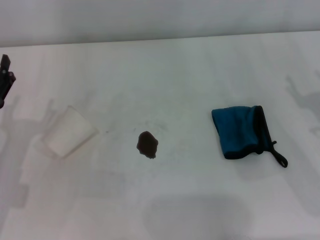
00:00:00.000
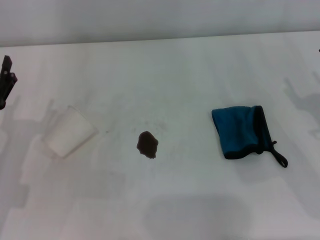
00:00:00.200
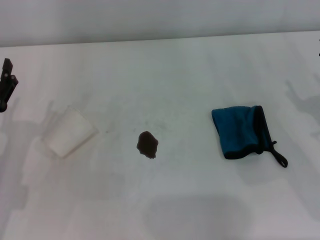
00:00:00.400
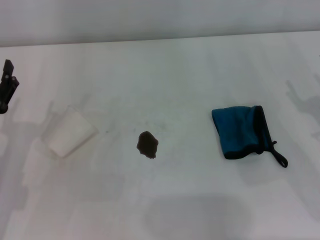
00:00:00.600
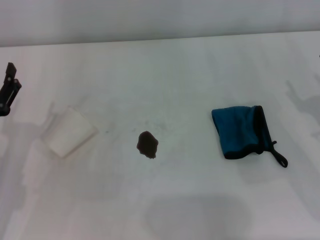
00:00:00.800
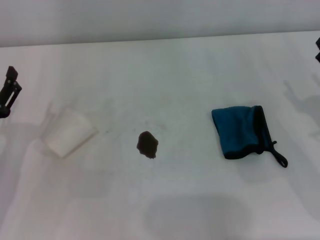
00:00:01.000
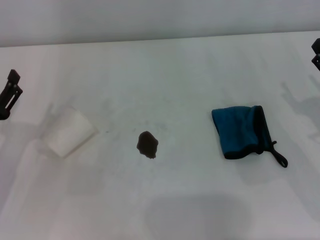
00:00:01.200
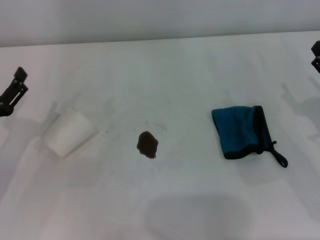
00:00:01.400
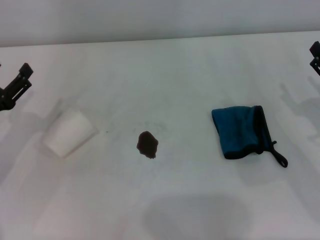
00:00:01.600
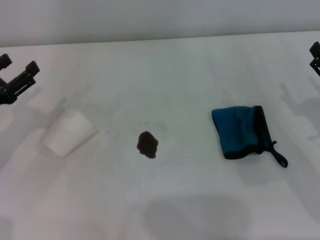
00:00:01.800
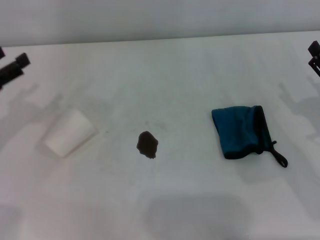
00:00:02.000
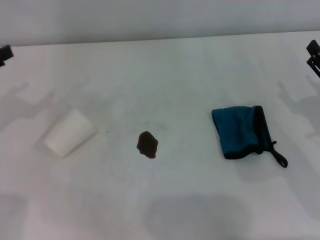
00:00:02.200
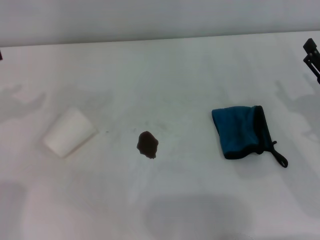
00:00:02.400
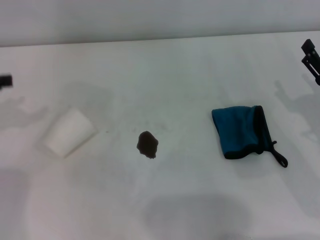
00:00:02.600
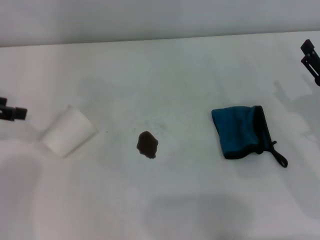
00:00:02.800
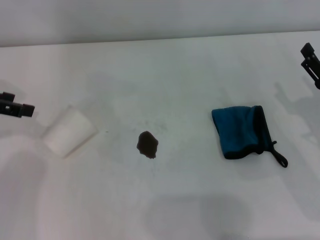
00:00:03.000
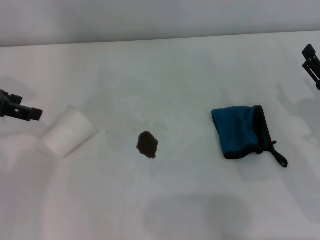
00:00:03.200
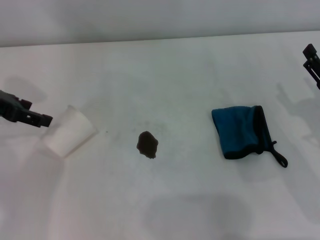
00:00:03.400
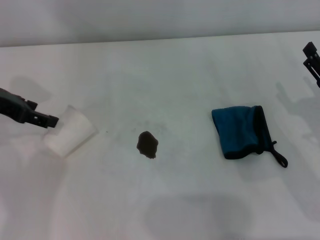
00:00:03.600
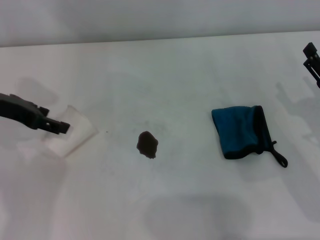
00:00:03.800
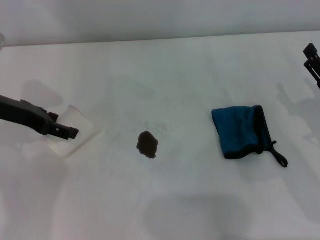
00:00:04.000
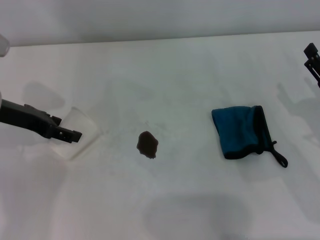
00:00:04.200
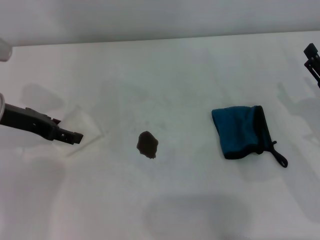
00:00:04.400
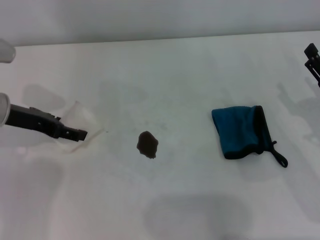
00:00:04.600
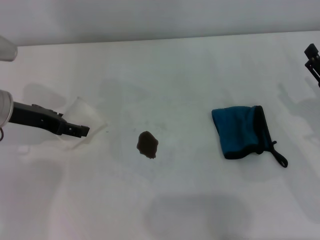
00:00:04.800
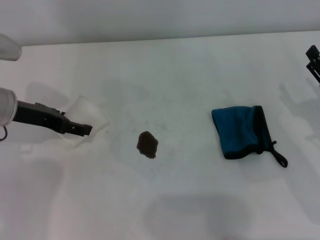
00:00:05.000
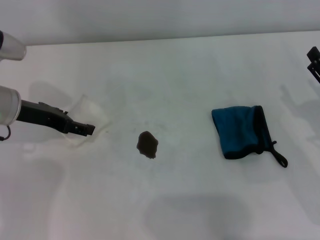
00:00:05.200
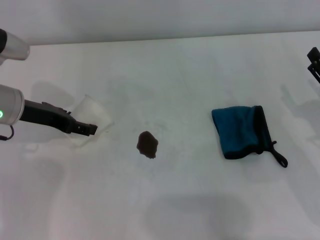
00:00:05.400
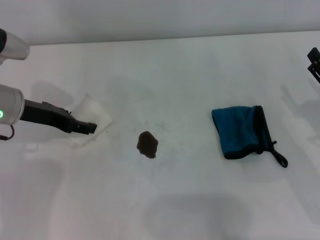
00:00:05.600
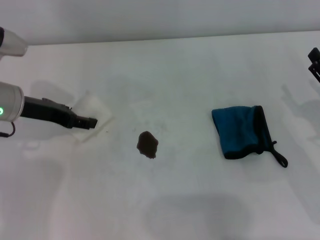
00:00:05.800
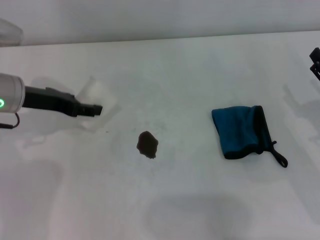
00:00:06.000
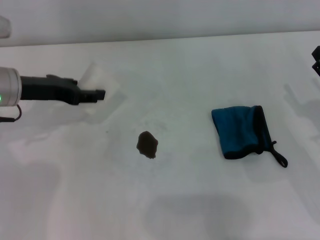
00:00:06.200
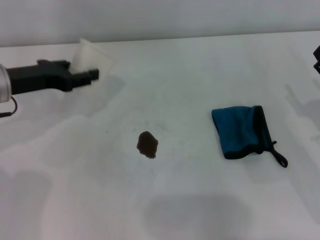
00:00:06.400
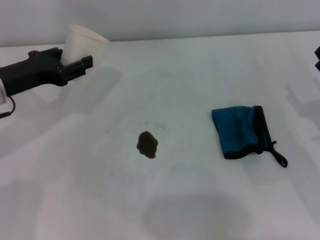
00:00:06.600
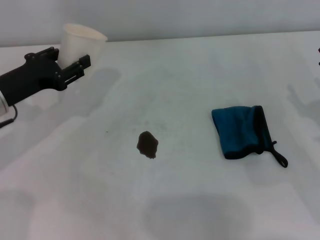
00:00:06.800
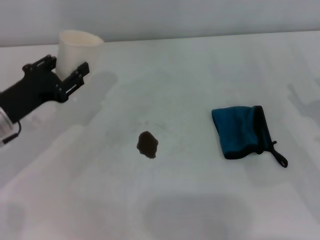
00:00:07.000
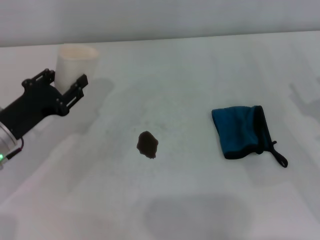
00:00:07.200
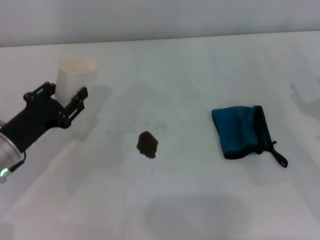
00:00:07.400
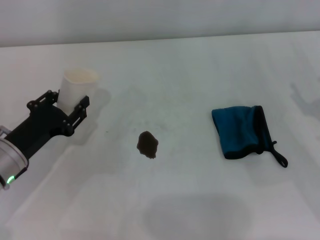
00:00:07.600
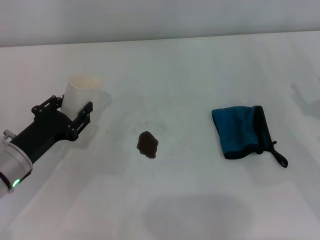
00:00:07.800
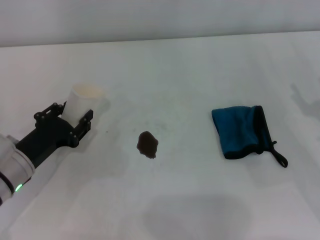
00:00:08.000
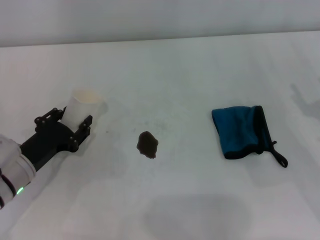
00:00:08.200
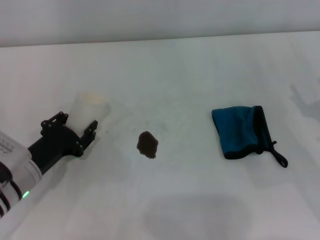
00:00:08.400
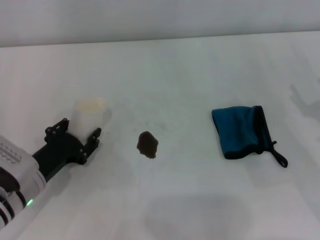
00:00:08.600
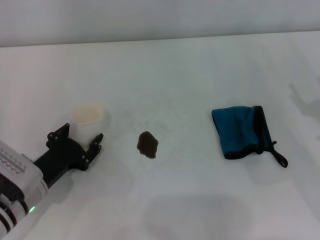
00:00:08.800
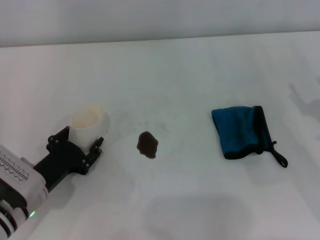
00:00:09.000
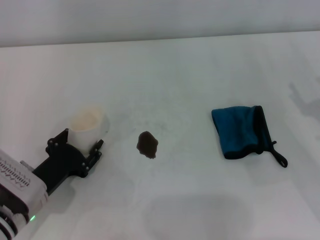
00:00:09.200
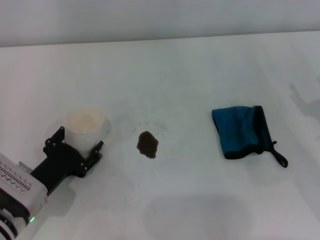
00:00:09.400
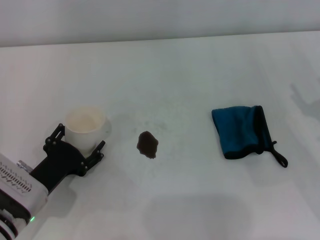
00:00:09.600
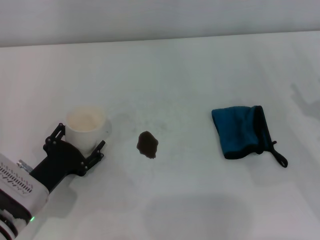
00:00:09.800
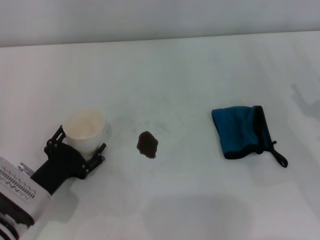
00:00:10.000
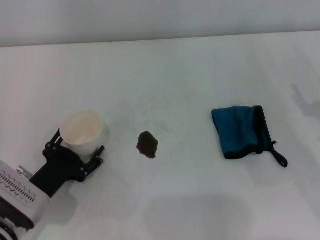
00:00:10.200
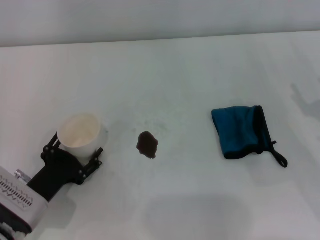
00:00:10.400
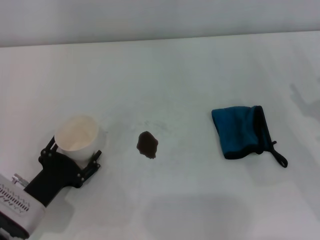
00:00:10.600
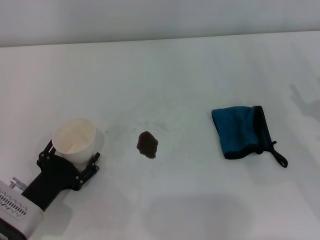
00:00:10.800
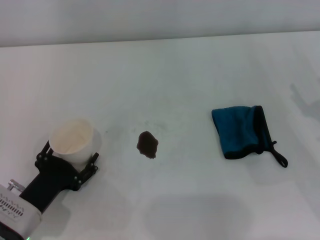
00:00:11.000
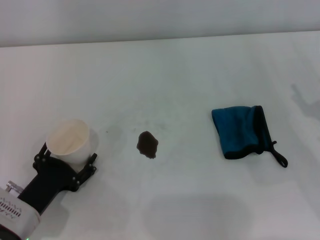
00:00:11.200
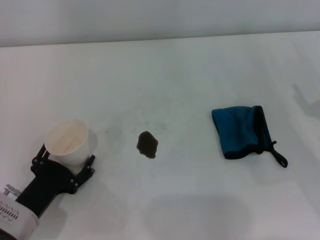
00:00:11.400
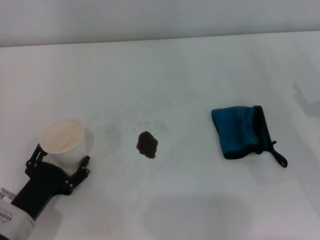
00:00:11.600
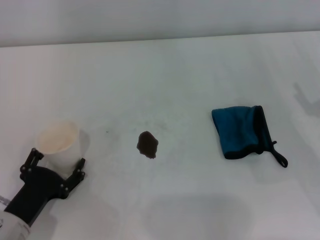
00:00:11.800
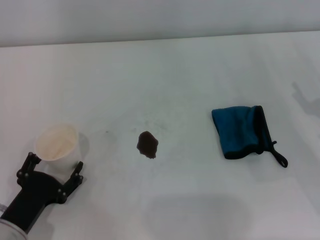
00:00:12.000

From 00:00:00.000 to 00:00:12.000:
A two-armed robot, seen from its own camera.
Step, from 00:00:00.000 to 00:00:05.600: Grasp the paper cup with the left gripper.
Step, from 00:00:05.800 to 00:00:12.000: Stand the paper cup upright with the left gripper.
From 00:00:01.600 to 00:00:03.000: The left gripper moves upward and forward, some 15 cm.
From 00:00:03.000 to 00:00:04.400: The left gripper shifts approximately 10 cm to the right and downward.
From 00:00:04.400 to 00:00:06.000: The left gripper closes up.
From 00:00:06.000 to 00:00:07.600: The left gripper shifts roughly 15 cm backward and downward.
From 00:00:07.600 to 00:00:09.000: The left gripper ends up some 5 cm from where it was.
From 00:00:09.000 to 00:00:10.400: The left gripper opens.
From 00:00:10.400 to 00:00:12.000: The grippers make only small movements.

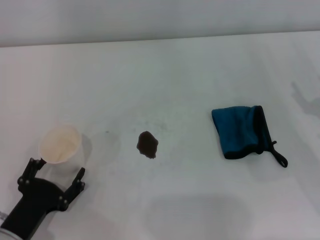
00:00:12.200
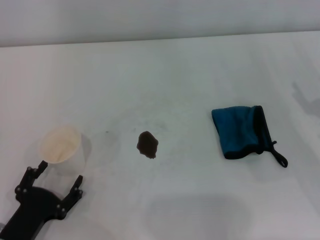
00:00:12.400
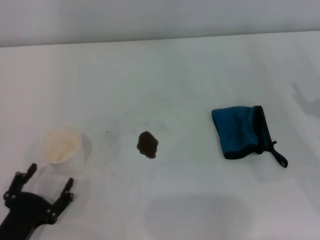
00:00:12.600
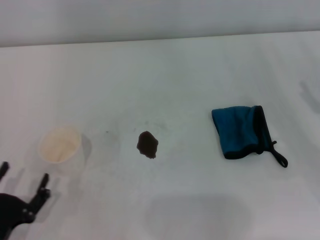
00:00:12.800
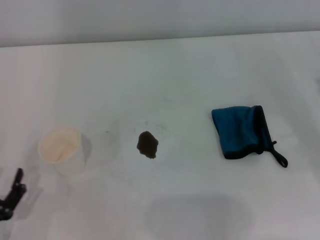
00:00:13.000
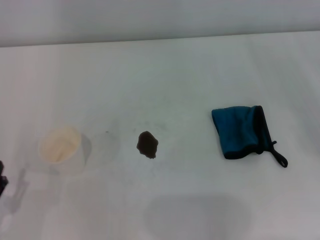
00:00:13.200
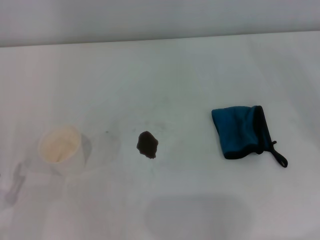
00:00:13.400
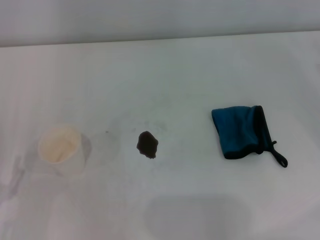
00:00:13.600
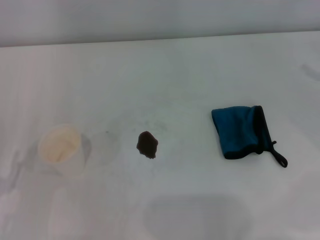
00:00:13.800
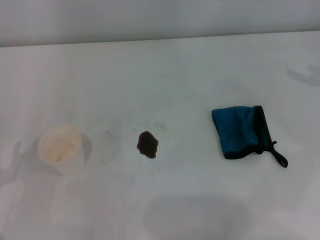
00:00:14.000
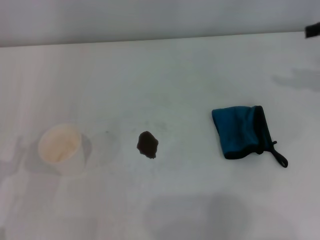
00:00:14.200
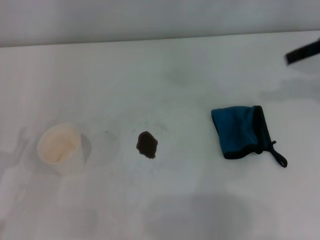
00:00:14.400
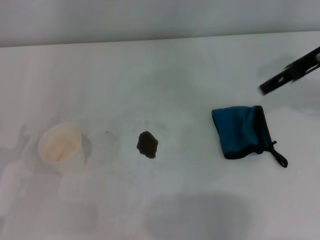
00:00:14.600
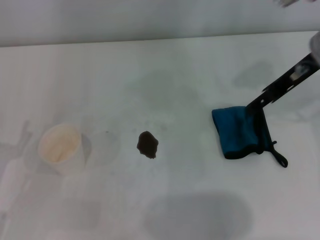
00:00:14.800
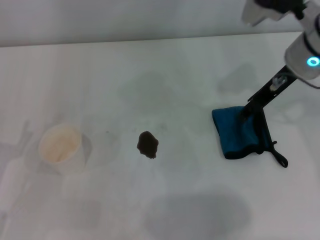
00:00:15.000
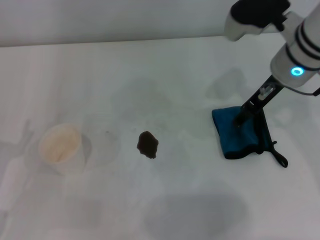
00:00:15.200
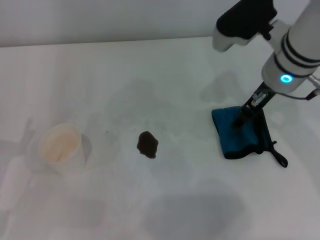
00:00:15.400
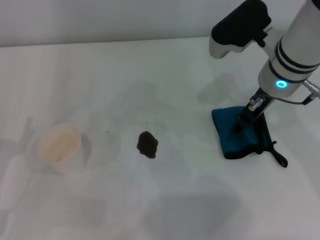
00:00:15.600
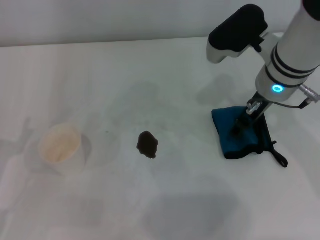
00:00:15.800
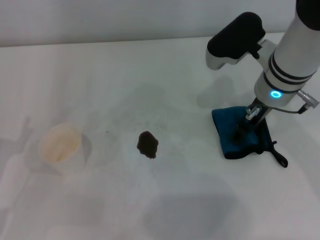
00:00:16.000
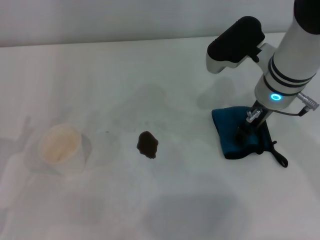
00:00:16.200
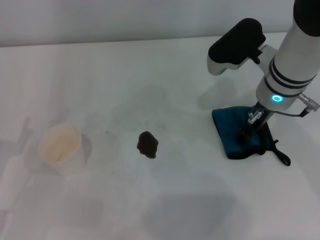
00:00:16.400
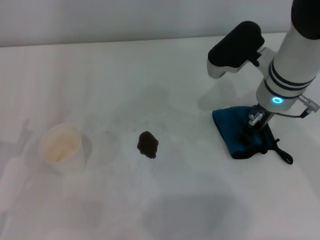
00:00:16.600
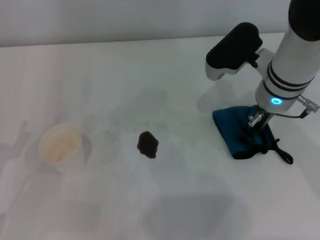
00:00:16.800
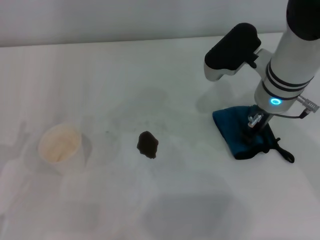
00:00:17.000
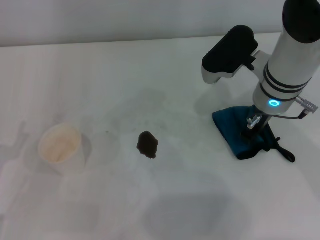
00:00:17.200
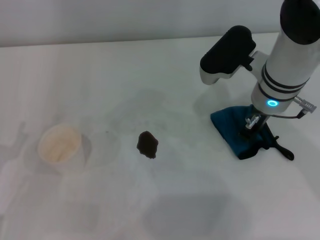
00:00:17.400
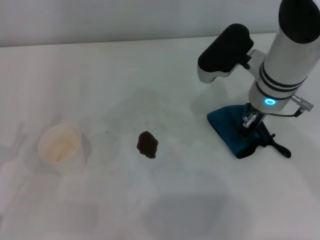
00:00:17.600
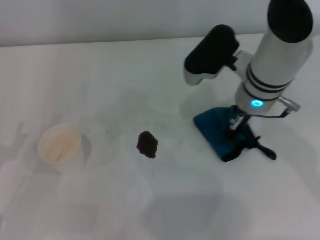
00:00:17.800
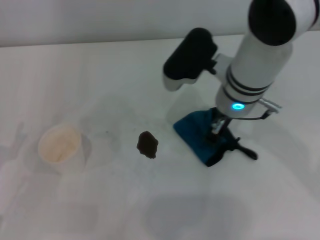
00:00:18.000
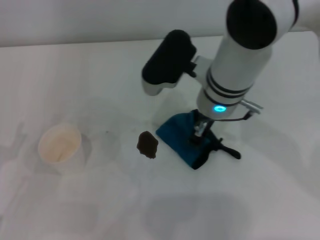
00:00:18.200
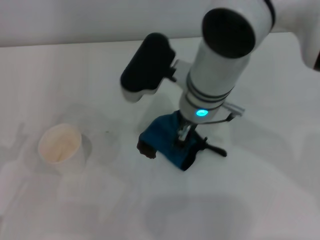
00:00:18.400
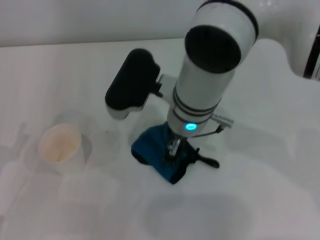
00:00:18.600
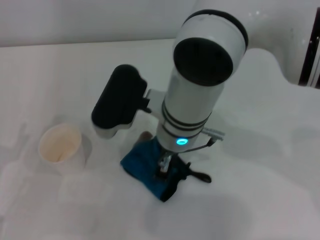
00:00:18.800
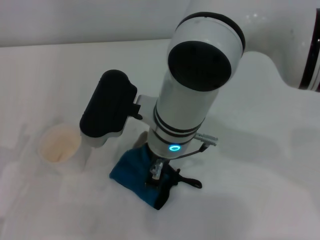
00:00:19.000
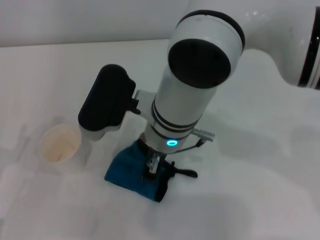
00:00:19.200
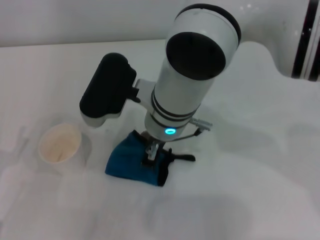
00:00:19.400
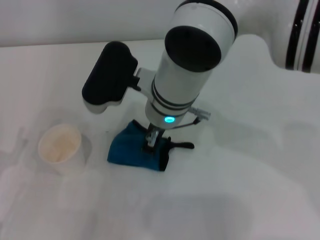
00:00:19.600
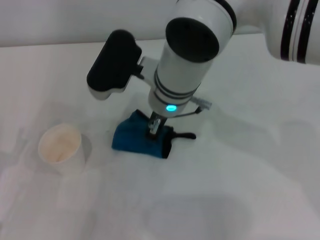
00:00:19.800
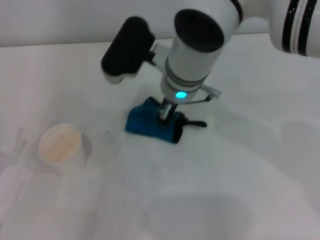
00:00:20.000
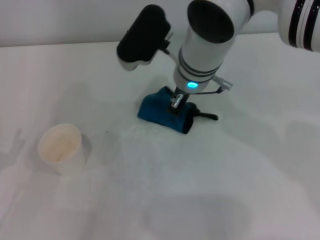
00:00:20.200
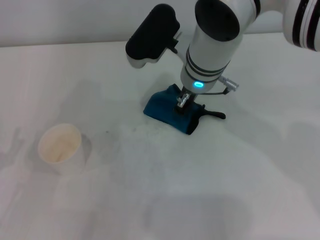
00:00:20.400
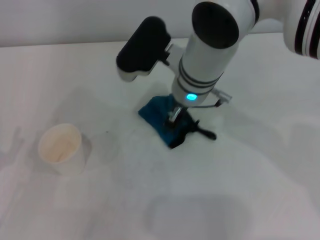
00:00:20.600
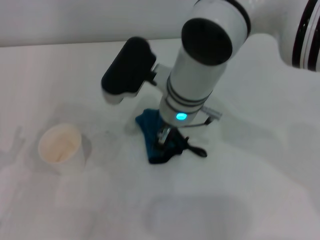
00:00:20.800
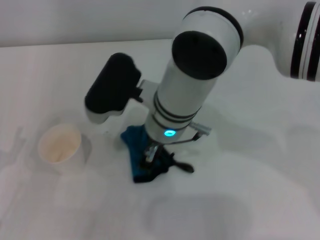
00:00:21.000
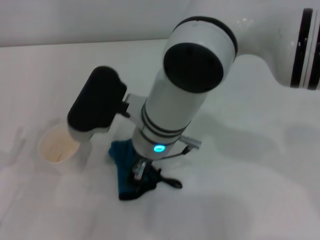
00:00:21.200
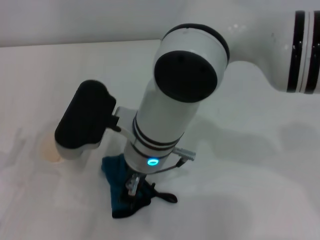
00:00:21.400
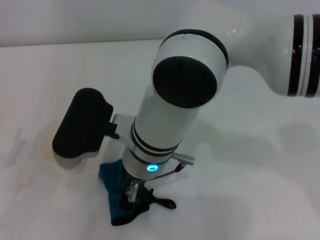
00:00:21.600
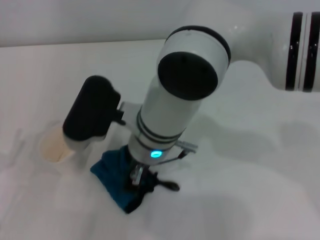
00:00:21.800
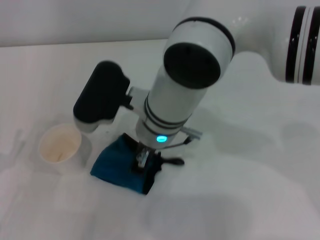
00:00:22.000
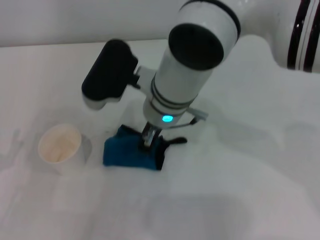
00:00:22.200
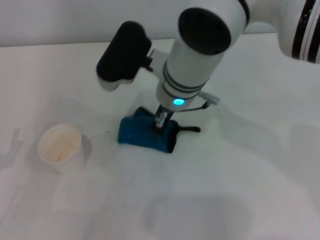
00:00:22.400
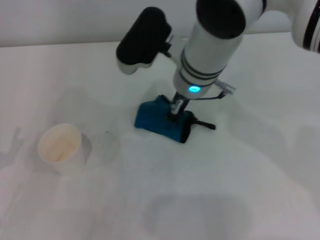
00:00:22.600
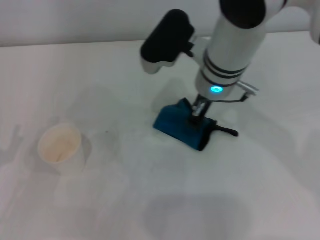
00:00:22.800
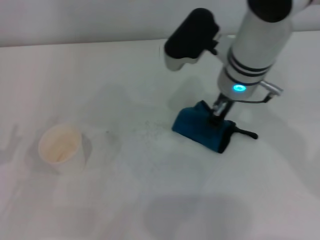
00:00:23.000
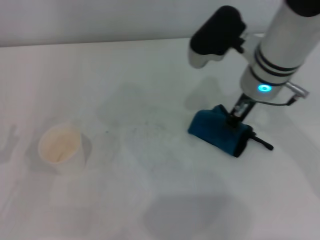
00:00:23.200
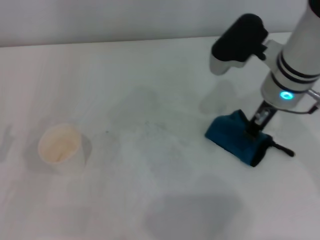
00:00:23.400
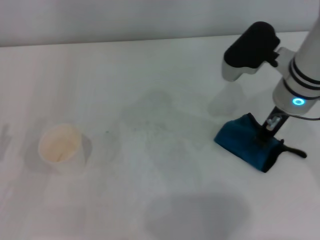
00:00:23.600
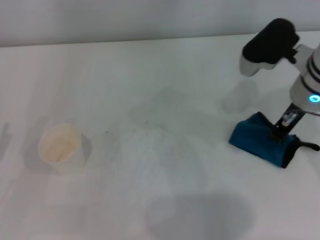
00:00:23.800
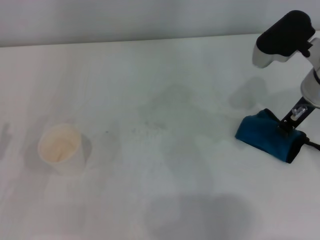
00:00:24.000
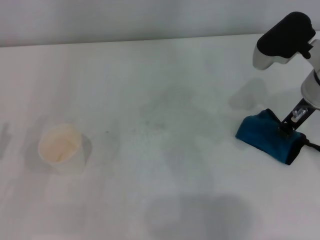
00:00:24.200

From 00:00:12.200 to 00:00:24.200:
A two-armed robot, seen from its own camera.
Step, from 00:00:12.200 to 00:00:17.400: Grasp the rag with the right gripper.
Step, from 00:00:17.600 to 00:00:23.800: Wipe the stains off the table with the right gripper.
From 00:00:12.200 to 00:00:13.800: The left gripper goes some 5 cm to the left.
From 00:00:13.800 to 00:00:15.200: The right gripper travels to the left by about 25 cm.
From 00:00:15.200 to 00:00:16.600: The right gripper changes place by approximately 5 cm.
From 00:00:16.600 to 00:00:18.200: The right gripper shifts about 10 cm to the left, and closes up.
From 00:00:18.200 to 00:00:19.800: The right gripper shifts some 5 cm to the left.
From 00:00:19.800 to 00:00:21.200: The right gripper heads backward, covering some 5 cm.
From 00:00:21.200 to 00:00:22.600: The right gripper moves forward and to the right, approximately 10 cm.
From 00:00:22.600 to 00:00:24.200: The right gripper moves to the right, some 20 cm.
